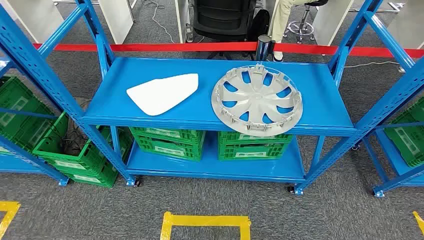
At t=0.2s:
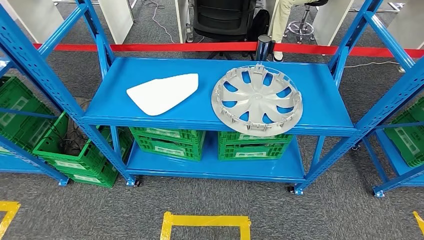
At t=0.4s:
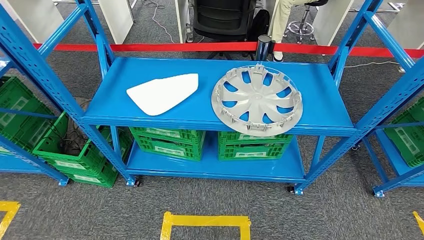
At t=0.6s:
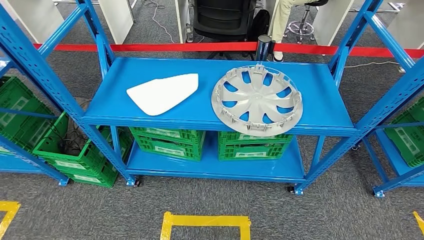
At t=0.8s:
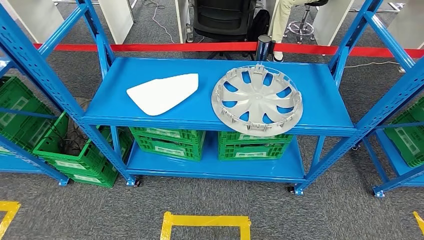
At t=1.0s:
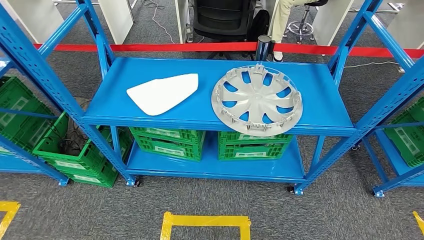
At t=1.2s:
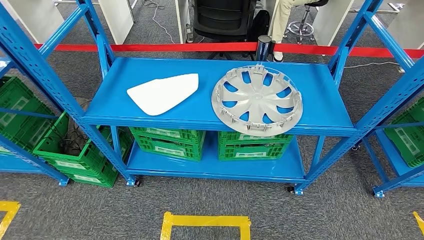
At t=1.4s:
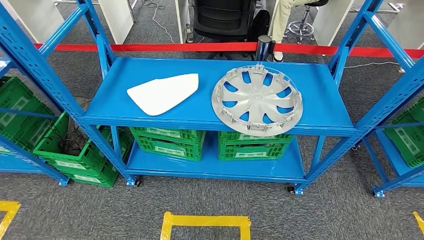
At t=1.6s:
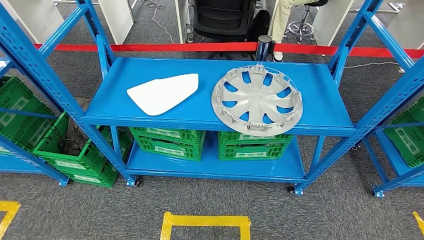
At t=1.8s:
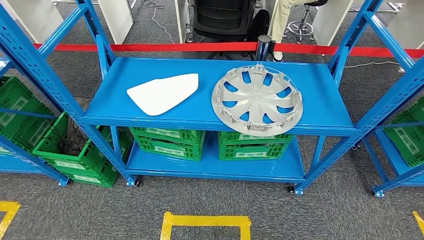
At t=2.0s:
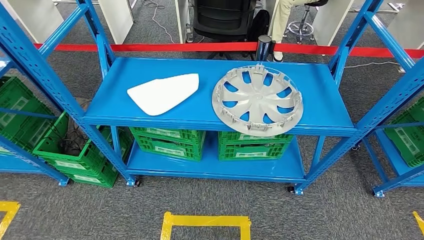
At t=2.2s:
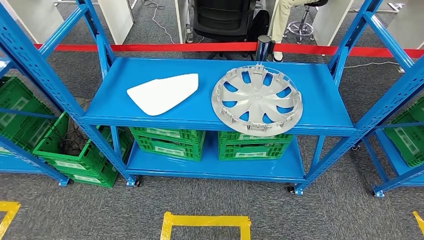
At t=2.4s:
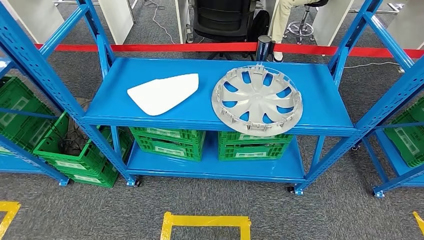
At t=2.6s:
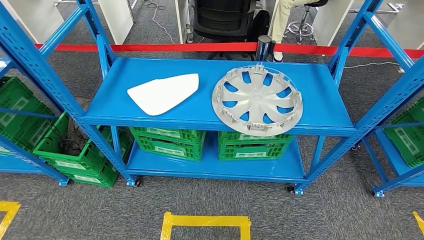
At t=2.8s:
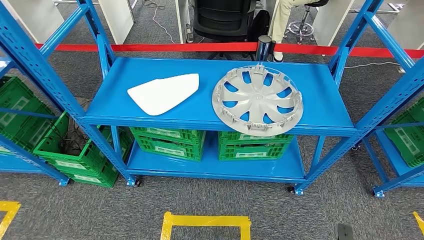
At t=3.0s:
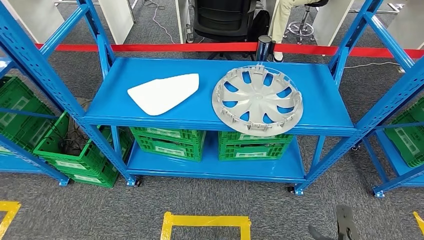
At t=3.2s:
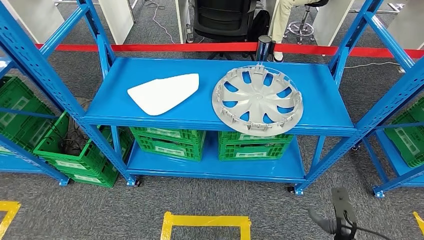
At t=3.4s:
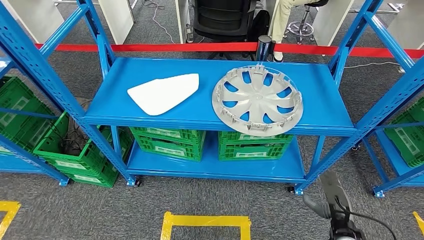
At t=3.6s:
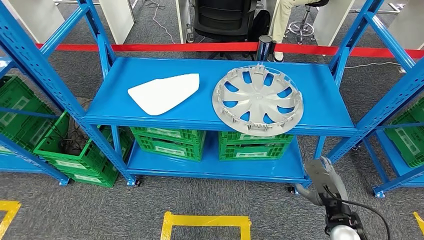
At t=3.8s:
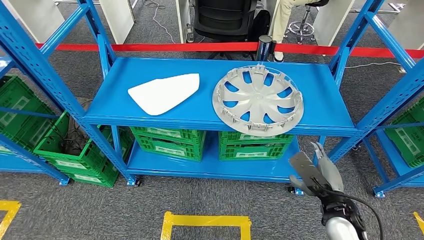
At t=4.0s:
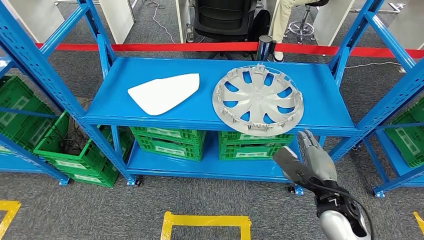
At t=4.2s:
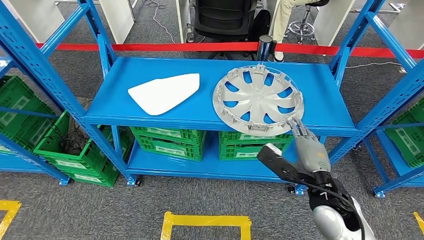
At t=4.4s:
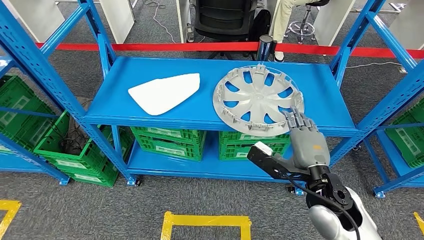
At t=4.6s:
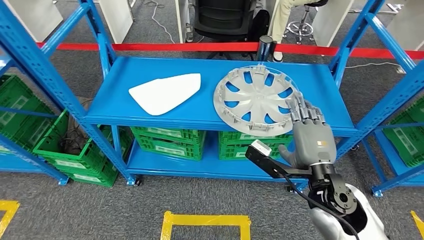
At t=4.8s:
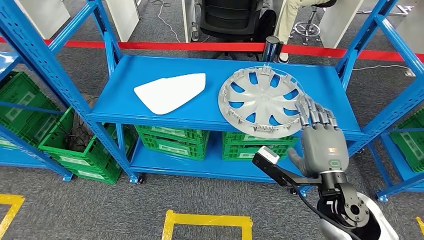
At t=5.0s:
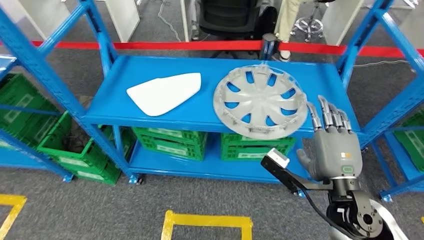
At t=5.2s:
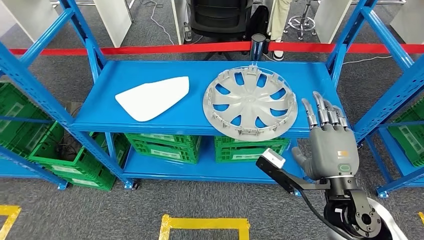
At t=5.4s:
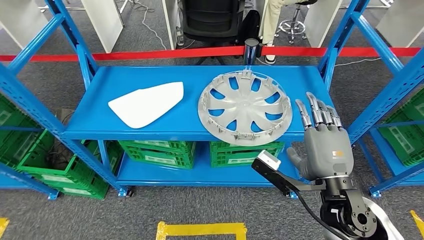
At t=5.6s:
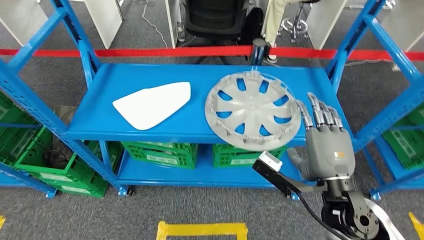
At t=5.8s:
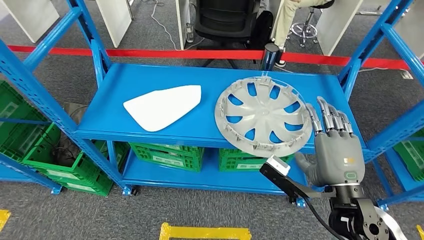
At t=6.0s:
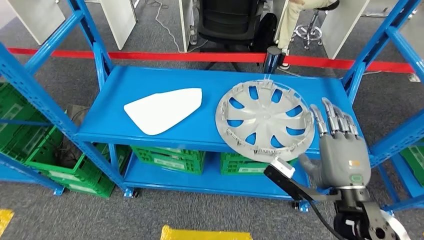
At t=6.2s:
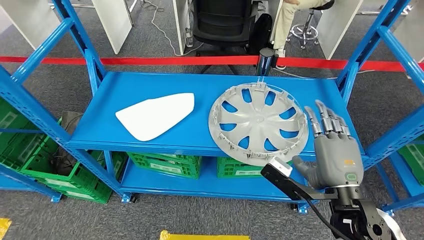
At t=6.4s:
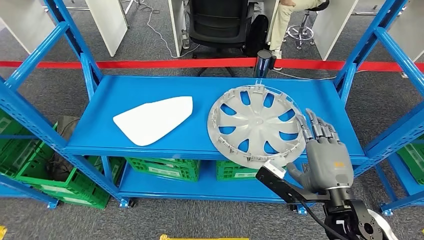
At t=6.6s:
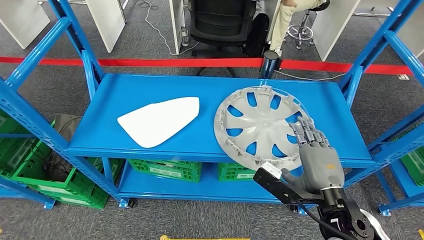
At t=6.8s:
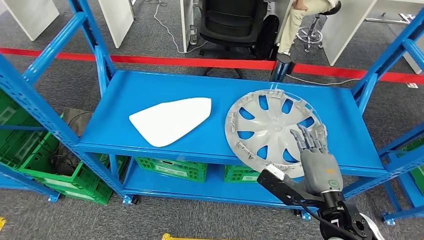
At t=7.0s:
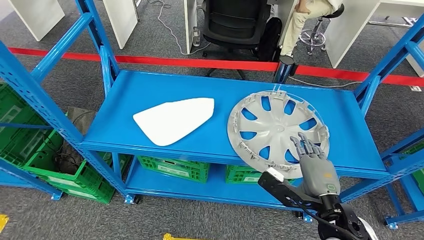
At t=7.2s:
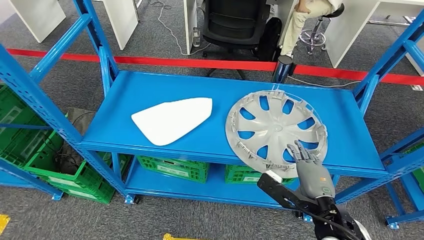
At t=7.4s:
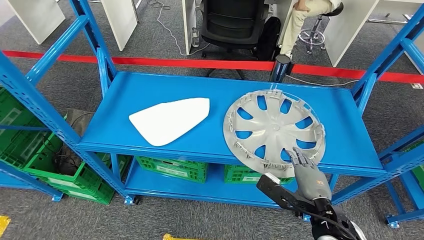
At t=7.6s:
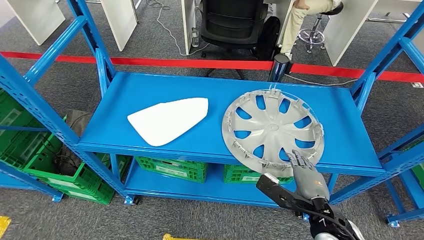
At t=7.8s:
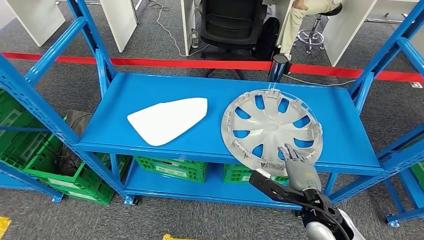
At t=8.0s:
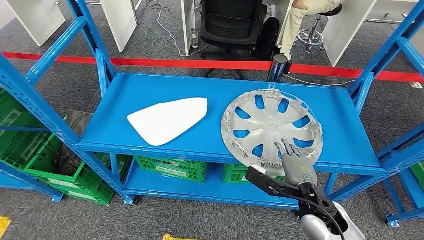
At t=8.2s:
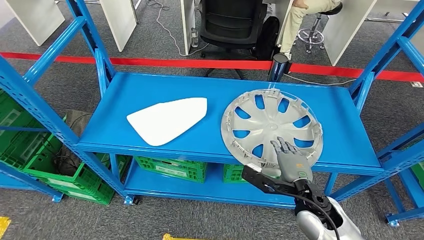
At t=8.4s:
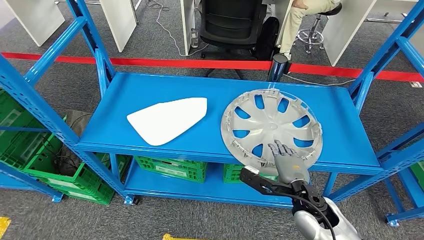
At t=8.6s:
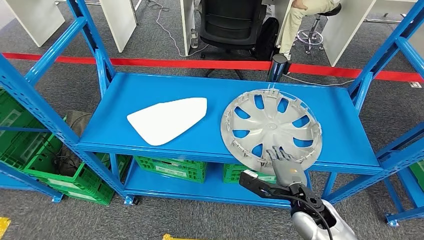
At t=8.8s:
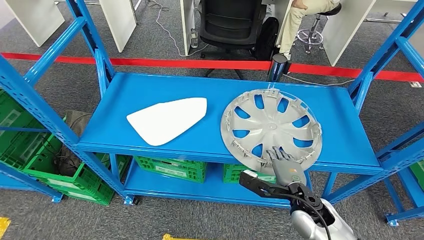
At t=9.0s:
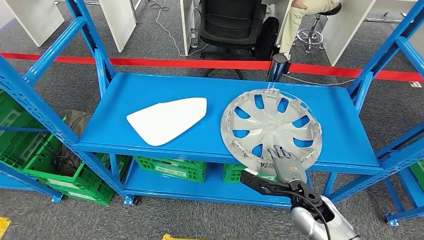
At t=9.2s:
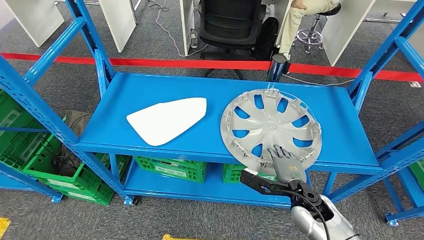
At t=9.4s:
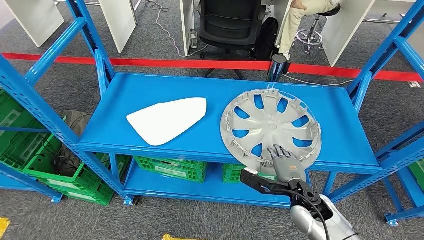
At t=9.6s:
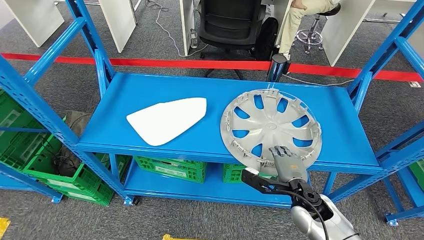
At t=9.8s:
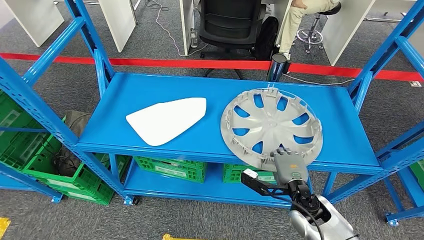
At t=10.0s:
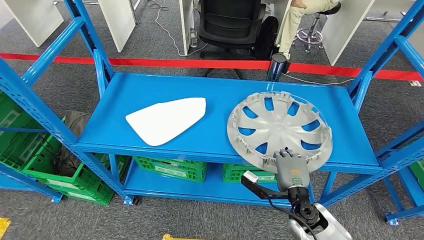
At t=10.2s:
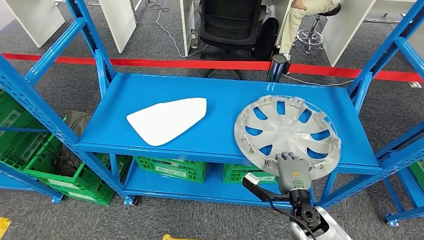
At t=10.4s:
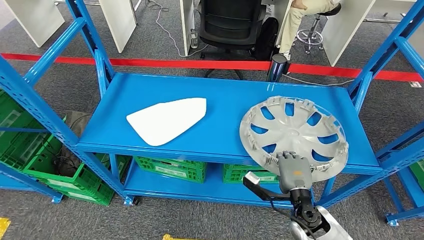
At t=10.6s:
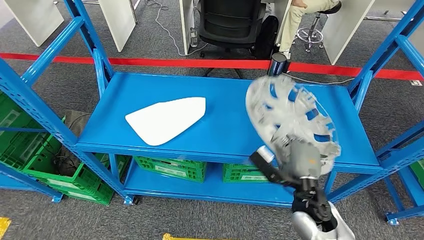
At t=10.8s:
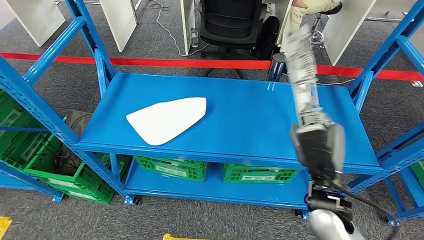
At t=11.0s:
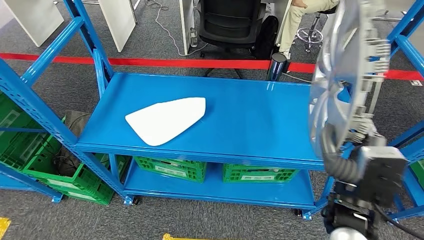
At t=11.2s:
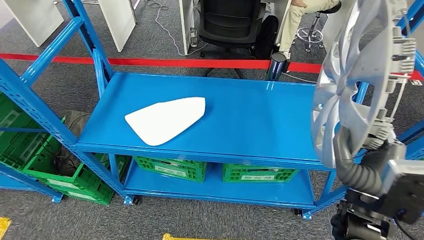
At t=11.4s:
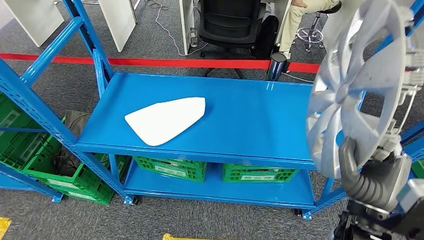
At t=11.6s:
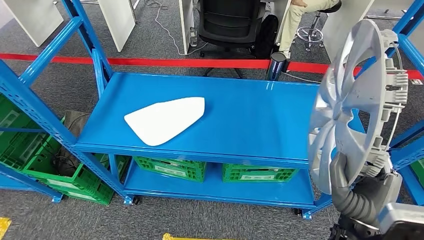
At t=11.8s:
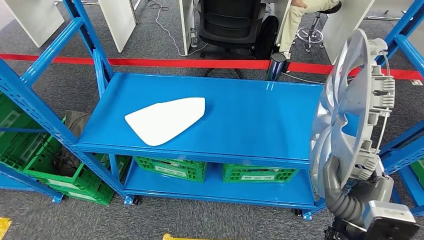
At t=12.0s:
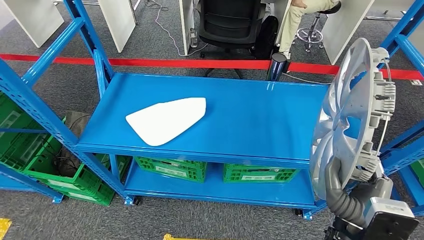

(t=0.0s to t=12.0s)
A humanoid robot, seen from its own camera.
Step, t=0.0s - t=11.2s: Pick up the small component from the shelf.
t=3.0s - t=4.4s: The right hand heads upward and to the left, covering some 30 cm.
t=7.6s - t=9.0s: The right hand heads forward, covering approximately 5 cm.

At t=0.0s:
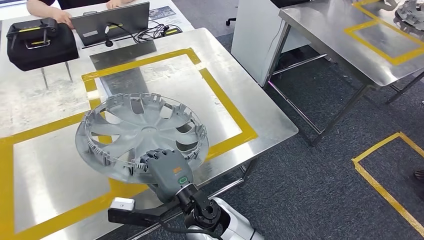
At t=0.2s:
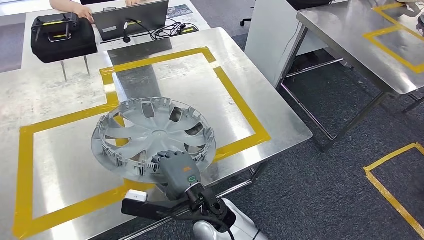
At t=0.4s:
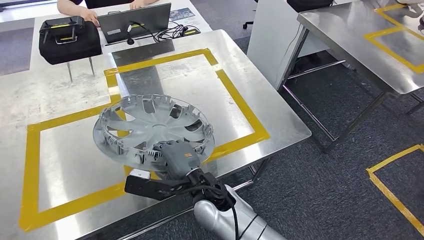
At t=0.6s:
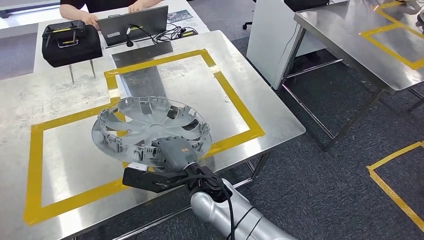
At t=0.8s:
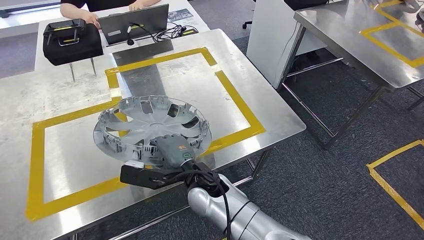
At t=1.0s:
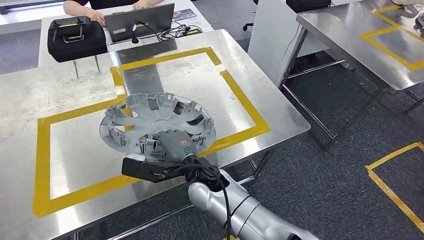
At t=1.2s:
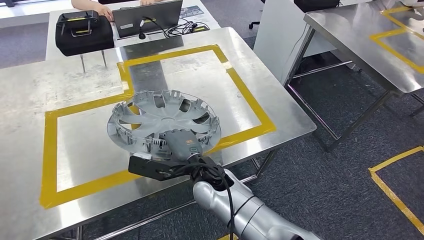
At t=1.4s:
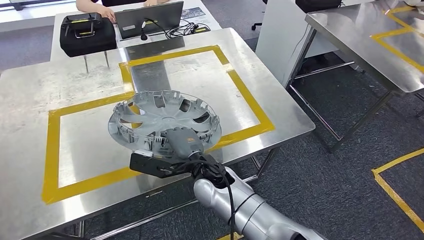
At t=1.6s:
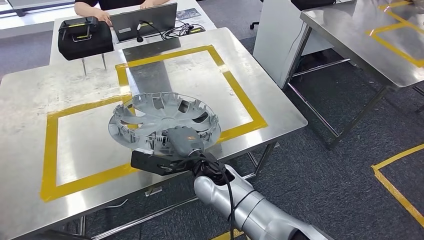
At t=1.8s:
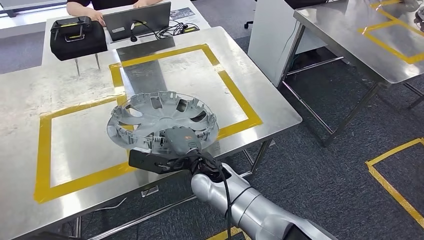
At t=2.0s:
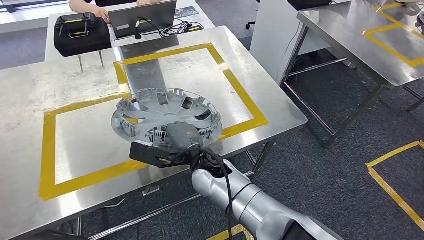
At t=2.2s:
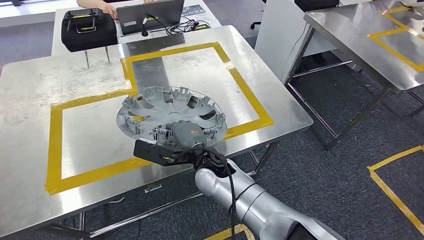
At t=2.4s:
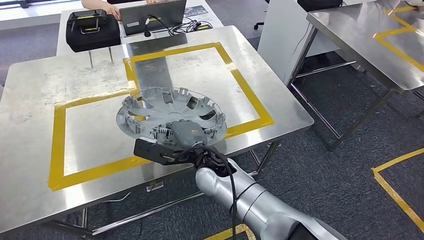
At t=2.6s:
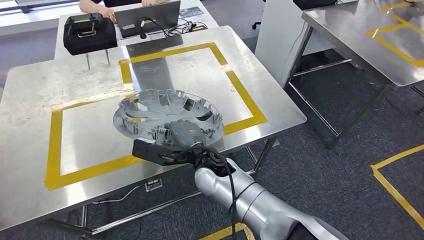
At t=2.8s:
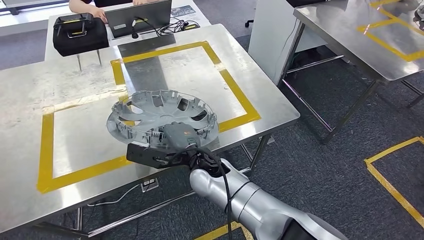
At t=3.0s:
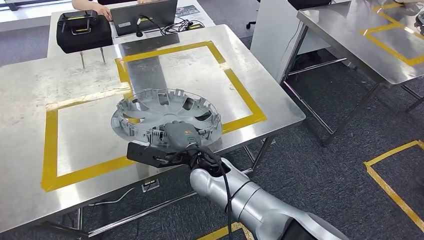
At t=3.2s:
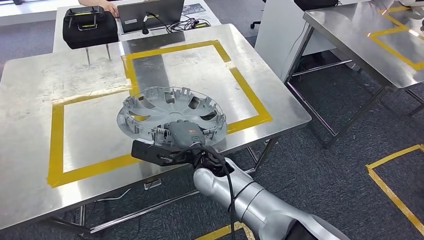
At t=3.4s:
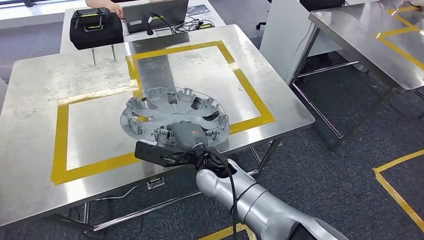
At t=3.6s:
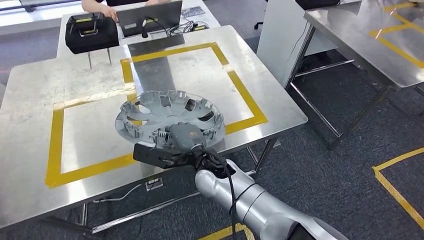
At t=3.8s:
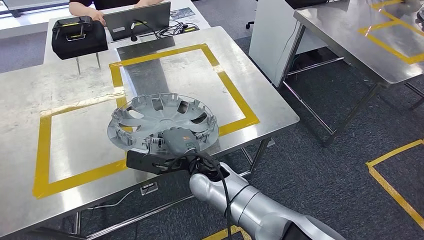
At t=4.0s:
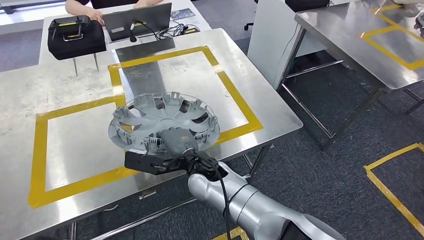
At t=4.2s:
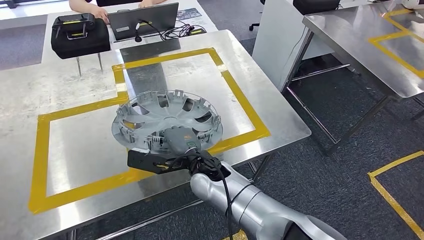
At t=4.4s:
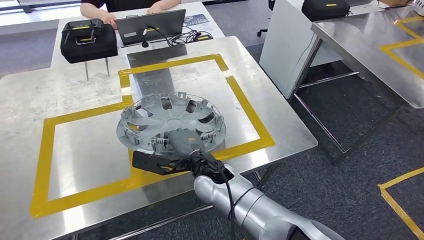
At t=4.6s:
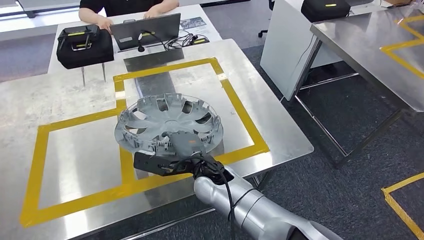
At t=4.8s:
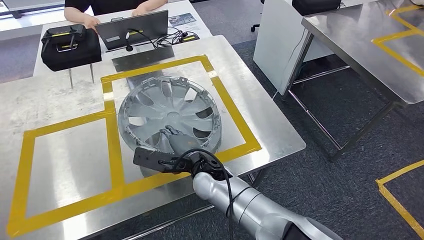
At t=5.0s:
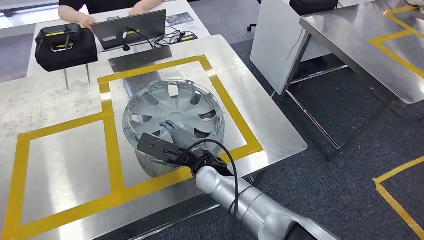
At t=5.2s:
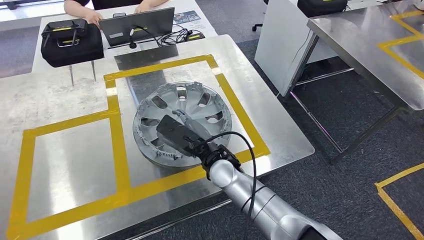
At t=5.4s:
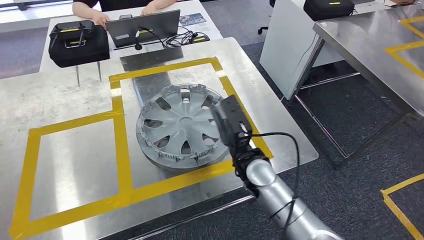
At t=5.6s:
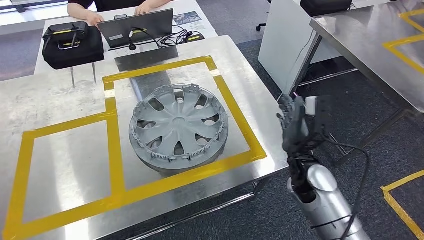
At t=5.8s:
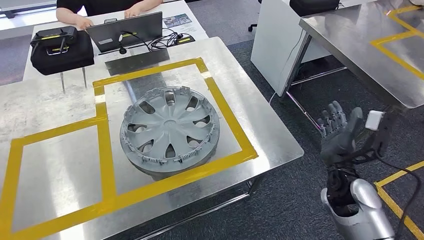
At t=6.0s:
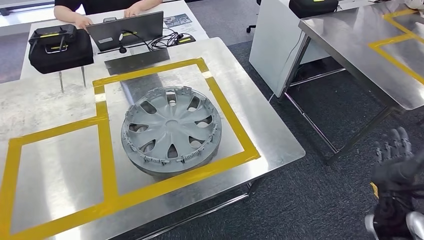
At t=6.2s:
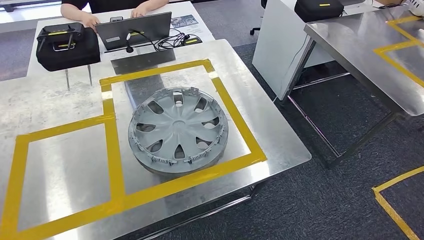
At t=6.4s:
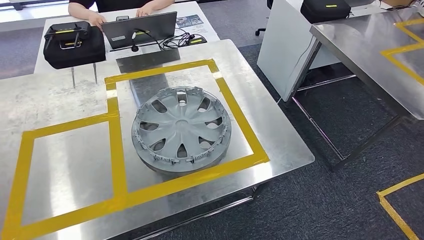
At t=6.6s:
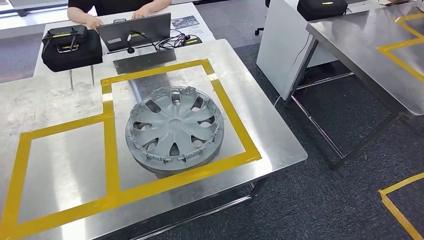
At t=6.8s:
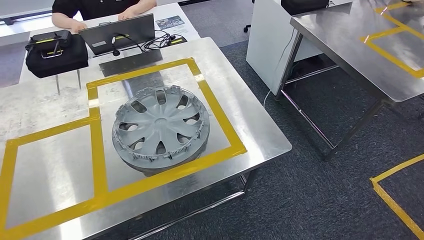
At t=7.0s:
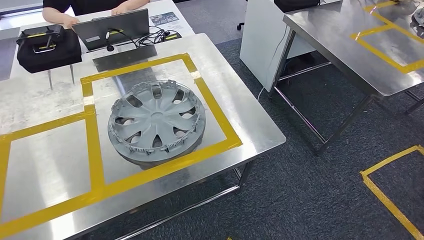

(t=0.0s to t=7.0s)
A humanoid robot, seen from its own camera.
Step, t=0.2s - t=5.4s: Insert the small component into the corresponding slot on the workbench.
